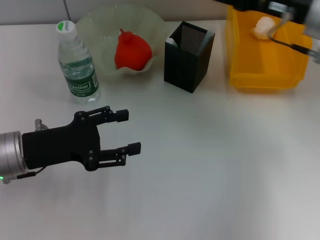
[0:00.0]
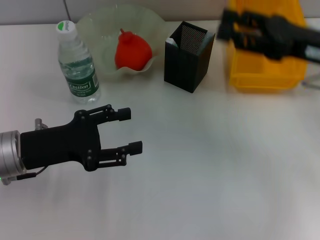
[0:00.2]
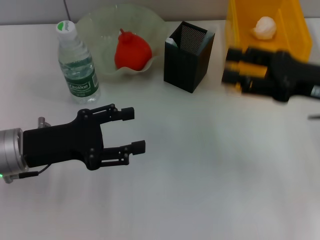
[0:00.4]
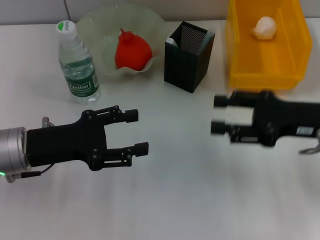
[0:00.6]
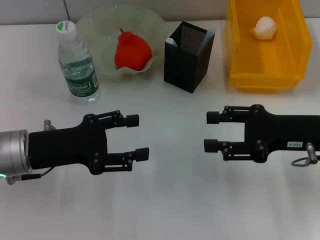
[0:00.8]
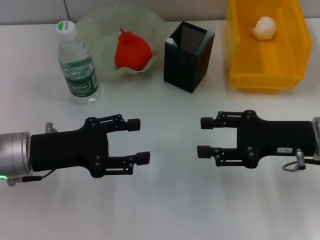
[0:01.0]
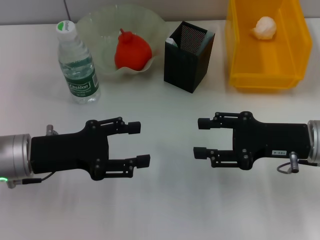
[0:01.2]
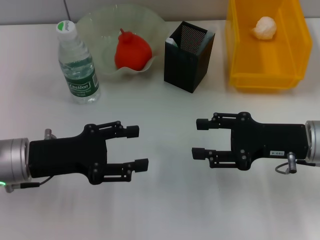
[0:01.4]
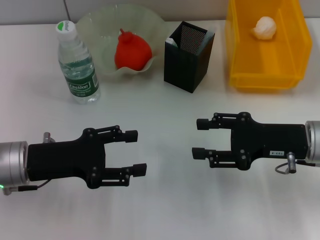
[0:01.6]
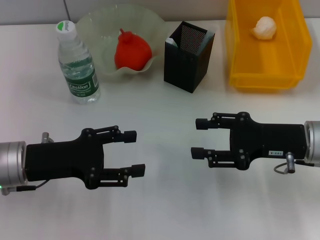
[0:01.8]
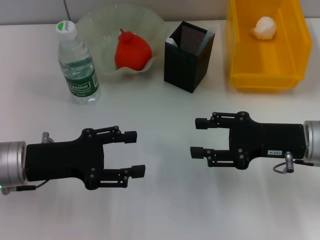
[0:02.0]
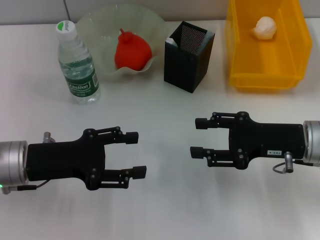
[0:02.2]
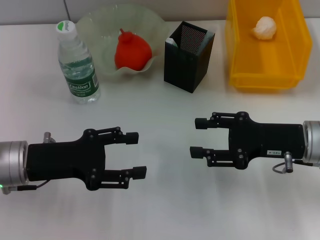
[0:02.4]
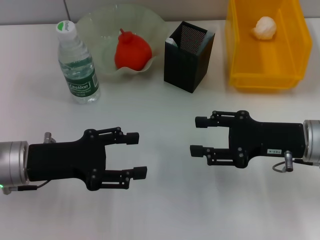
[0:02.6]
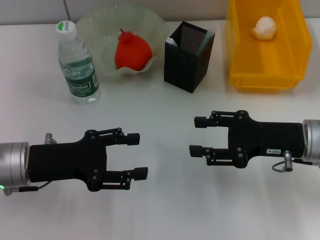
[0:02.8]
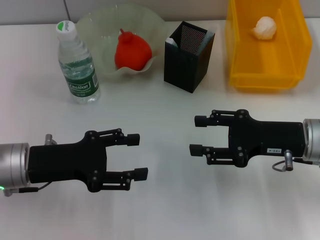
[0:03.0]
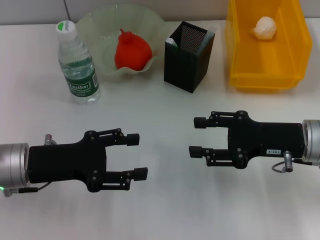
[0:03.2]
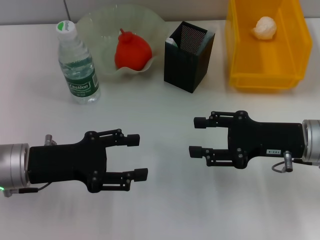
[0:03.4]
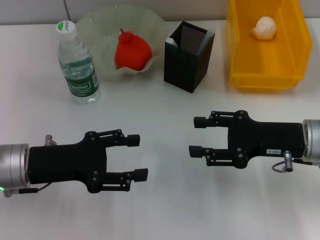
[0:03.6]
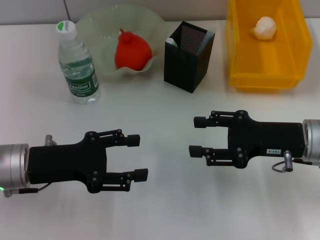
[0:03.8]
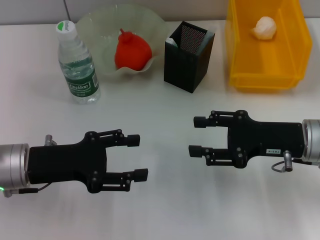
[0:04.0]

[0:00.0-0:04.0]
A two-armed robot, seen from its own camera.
0:00.0 to 0:01.4: The right gripper shifts some 15 cm backward and downward.
0:01.4 to 0:04.0: The two grippers keep their place.
